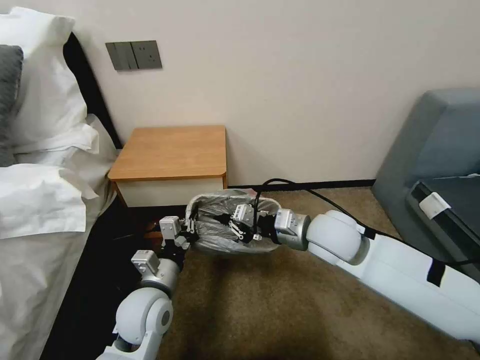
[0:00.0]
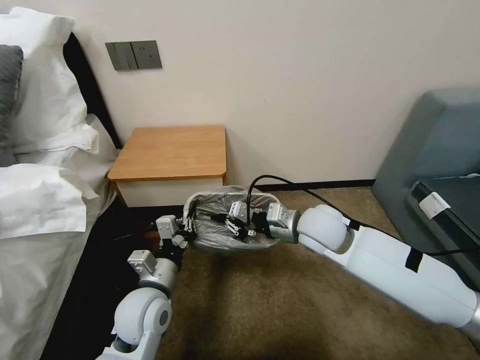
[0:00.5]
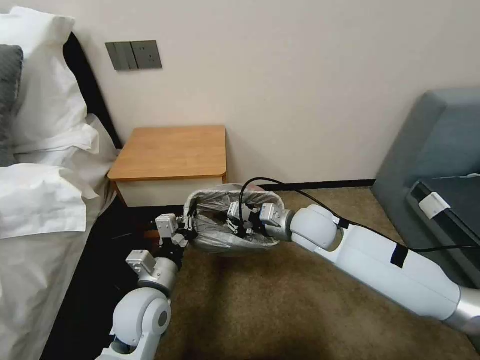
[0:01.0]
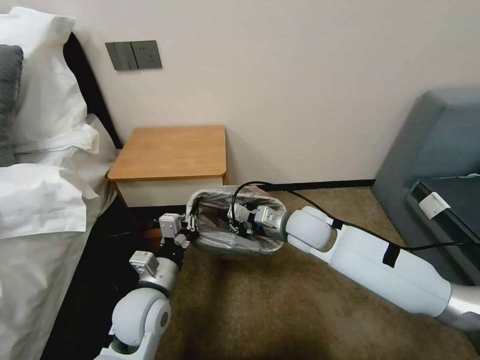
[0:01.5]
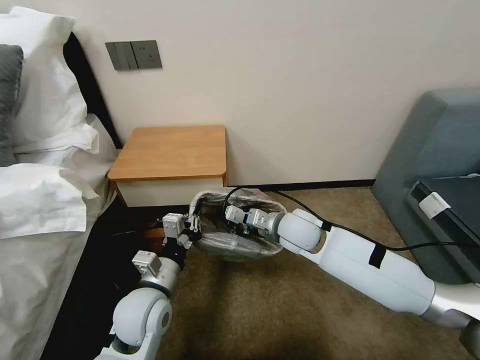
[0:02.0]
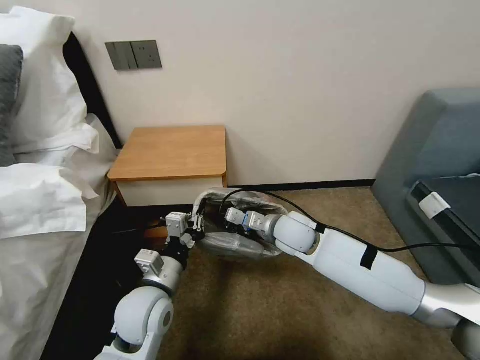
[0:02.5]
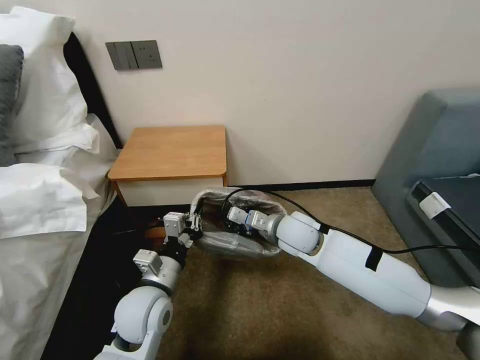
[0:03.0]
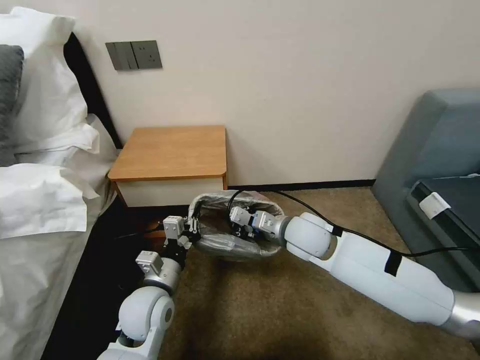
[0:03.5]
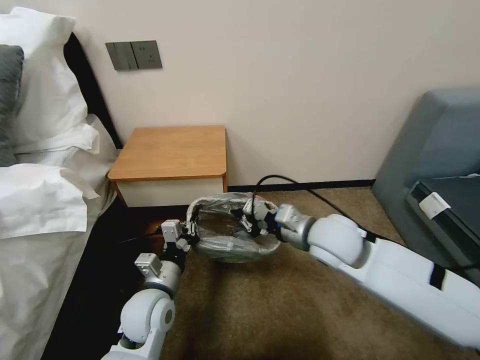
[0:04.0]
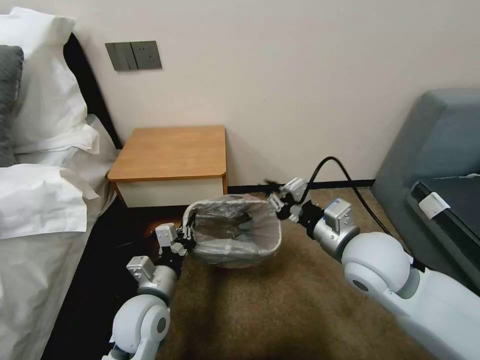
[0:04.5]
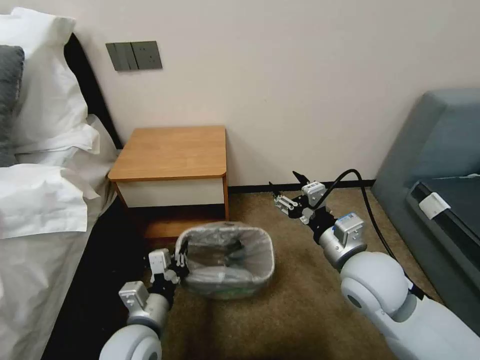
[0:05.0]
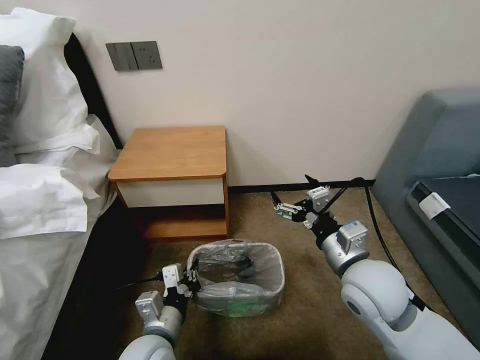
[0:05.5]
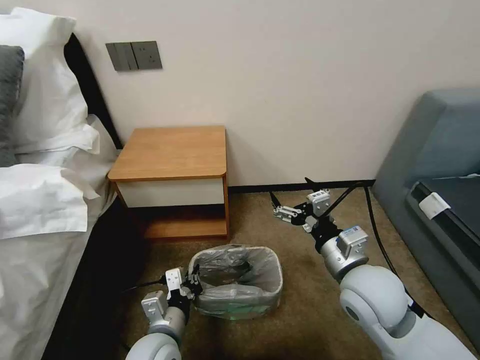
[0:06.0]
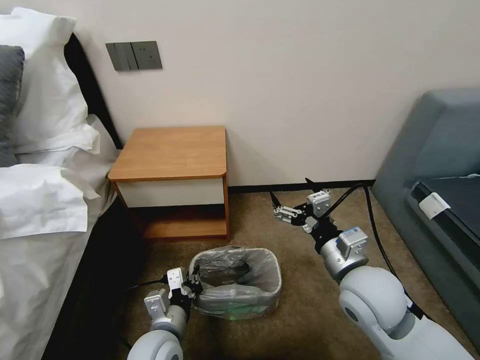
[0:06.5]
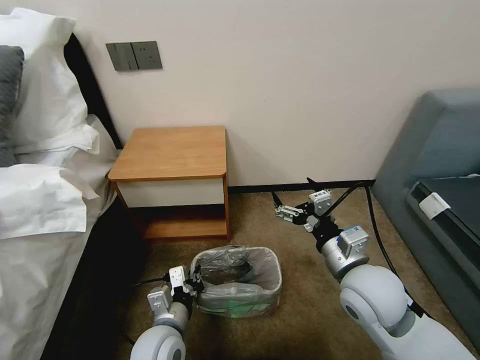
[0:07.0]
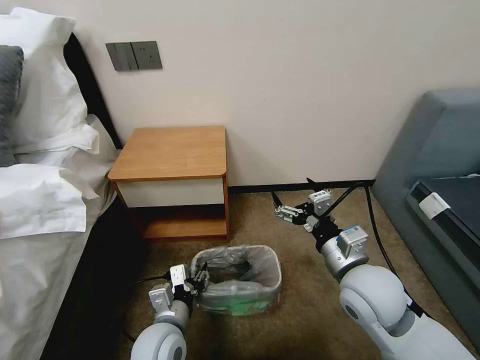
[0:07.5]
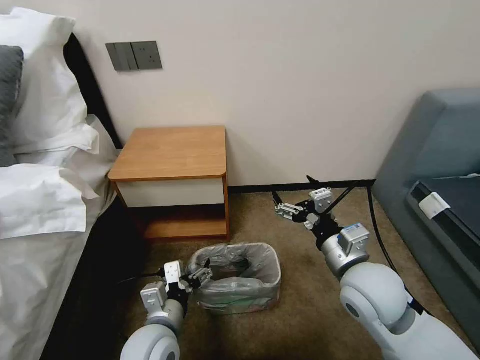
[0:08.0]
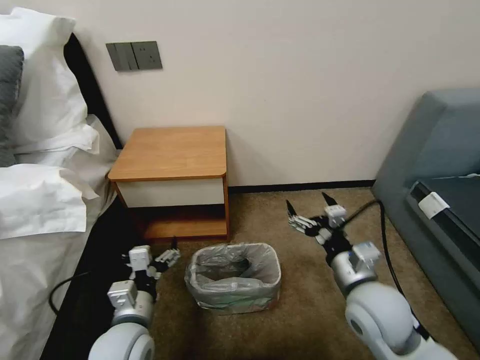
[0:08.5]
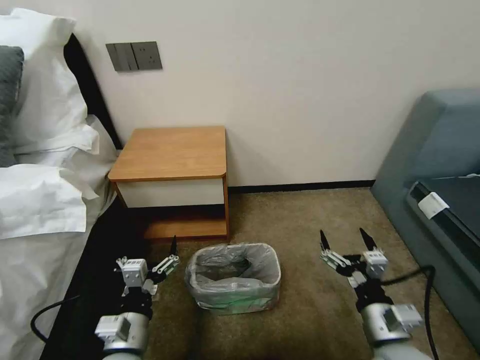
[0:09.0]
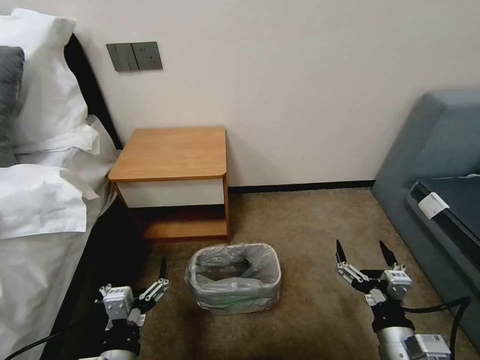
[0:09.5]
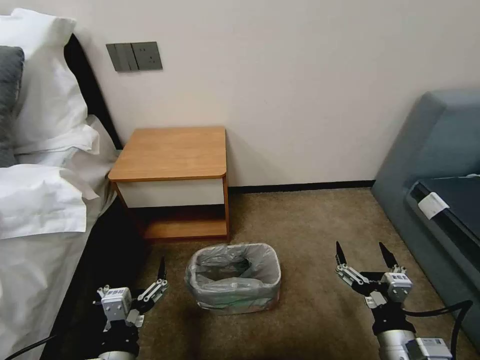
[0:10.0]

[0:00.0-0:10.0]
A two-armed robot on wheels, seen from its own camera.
Task of the whole recording: Pick up the garbage bag from the table and place it over the trash can.
0:00.0 to 0:02.0: The right gripper shifts some 10 cm downward and forward.
0:02.0 to 0:04.0: The right gripper heads backward and upward, covering some 10 cm.
0:04.0 to 0:06.0: The two grippers go about 10 cm backward. The right gripper opens.
0:06.0 to 0:08.0: The left gripper opens its fingers.
0:08.0 to 0:10.0: The left gripper is displaced backward by approximately 10 cm. Meanwhile the right gripper is displaced backward and downward by some 15 cm.
